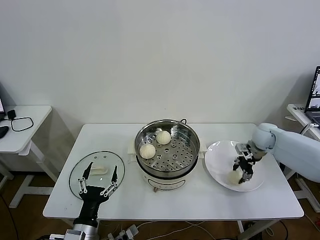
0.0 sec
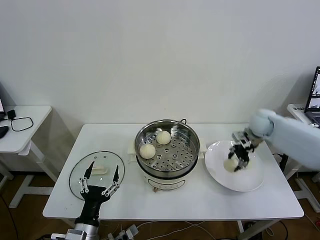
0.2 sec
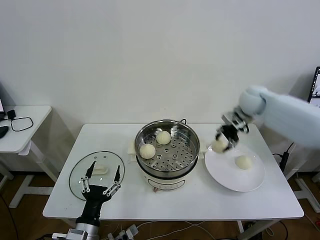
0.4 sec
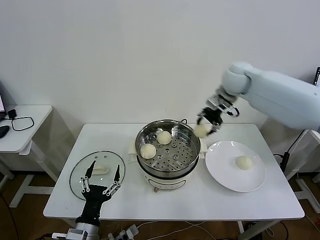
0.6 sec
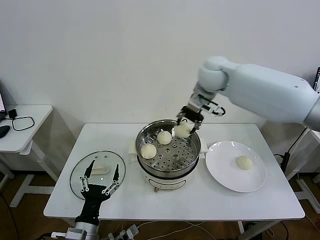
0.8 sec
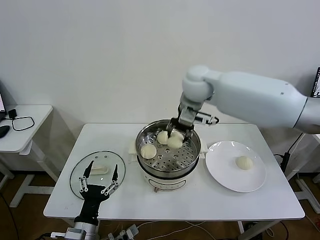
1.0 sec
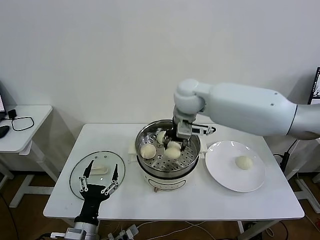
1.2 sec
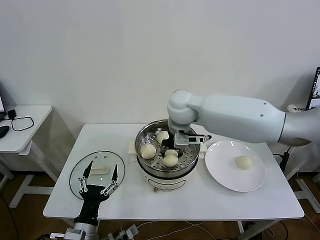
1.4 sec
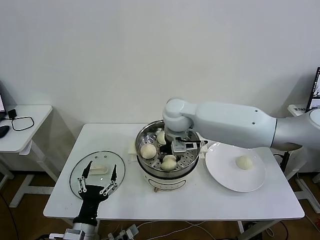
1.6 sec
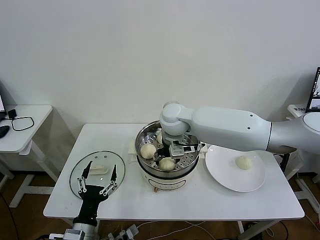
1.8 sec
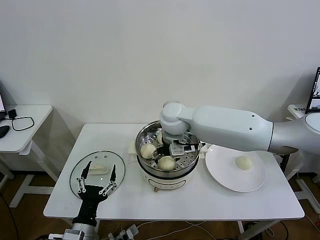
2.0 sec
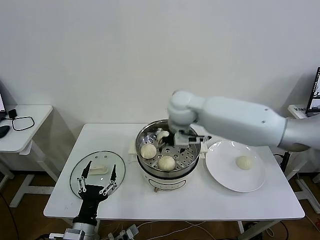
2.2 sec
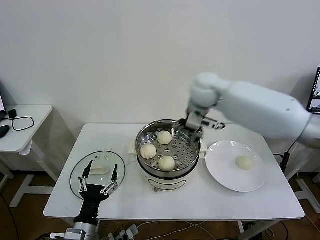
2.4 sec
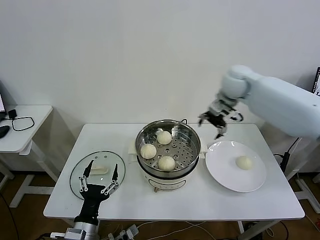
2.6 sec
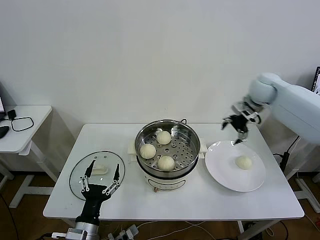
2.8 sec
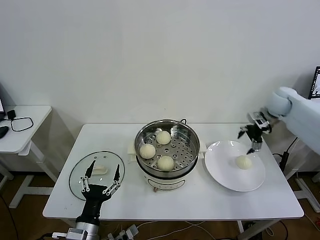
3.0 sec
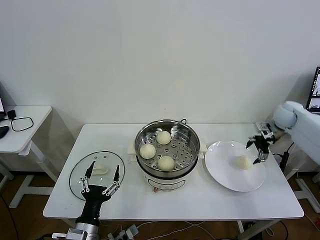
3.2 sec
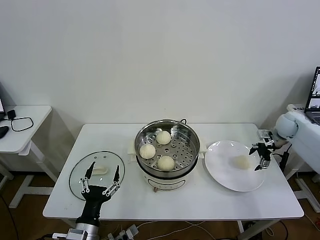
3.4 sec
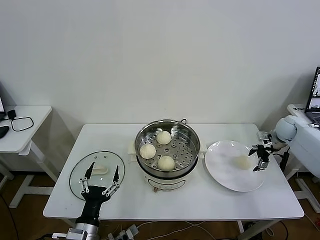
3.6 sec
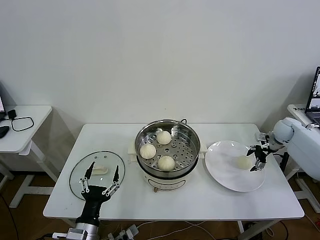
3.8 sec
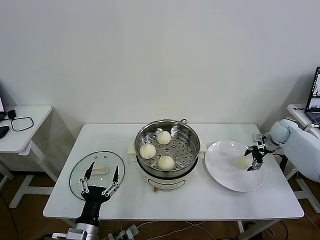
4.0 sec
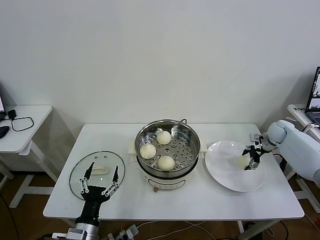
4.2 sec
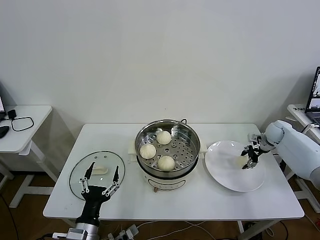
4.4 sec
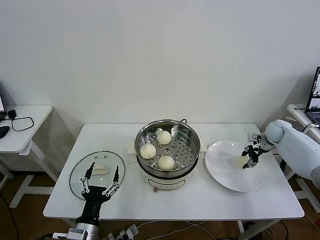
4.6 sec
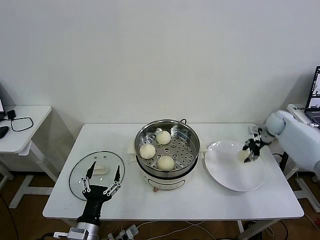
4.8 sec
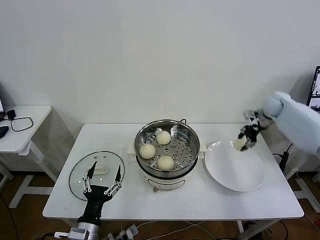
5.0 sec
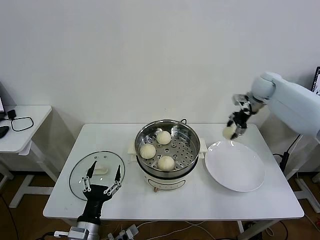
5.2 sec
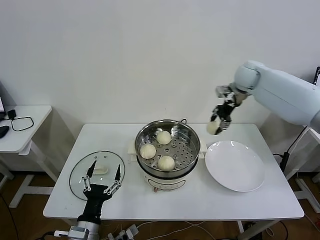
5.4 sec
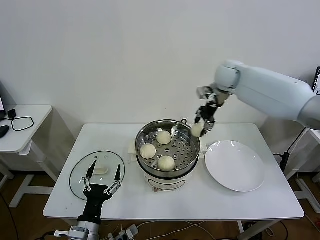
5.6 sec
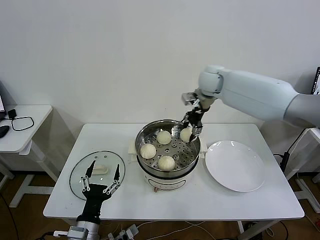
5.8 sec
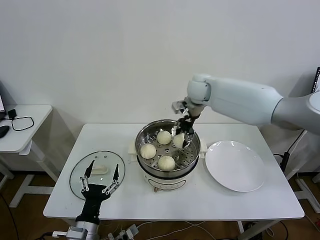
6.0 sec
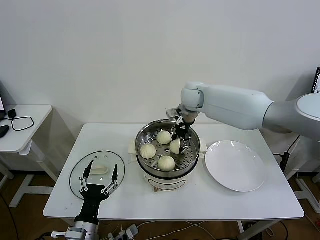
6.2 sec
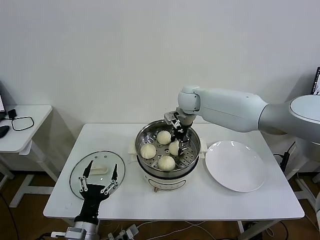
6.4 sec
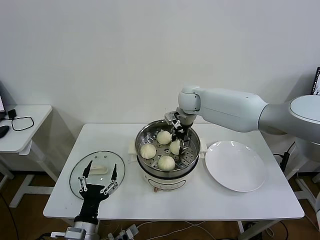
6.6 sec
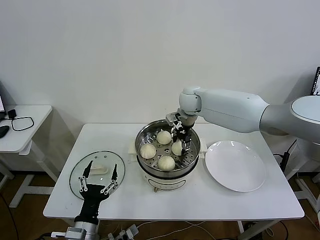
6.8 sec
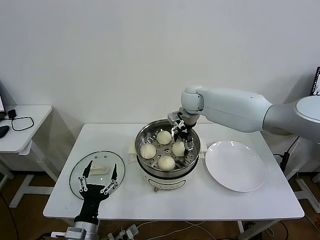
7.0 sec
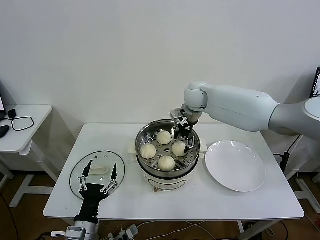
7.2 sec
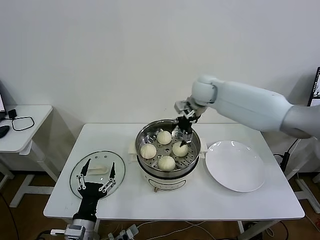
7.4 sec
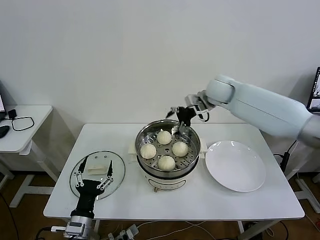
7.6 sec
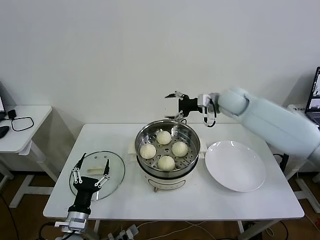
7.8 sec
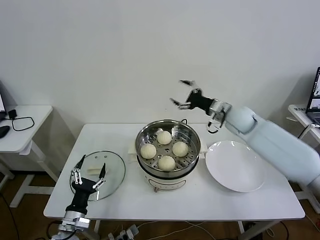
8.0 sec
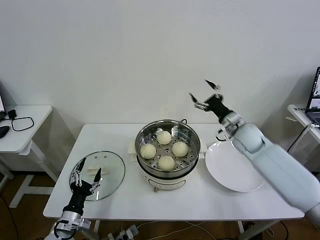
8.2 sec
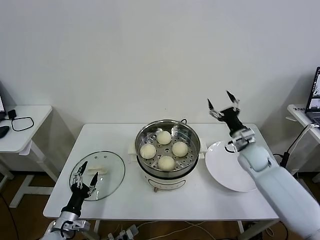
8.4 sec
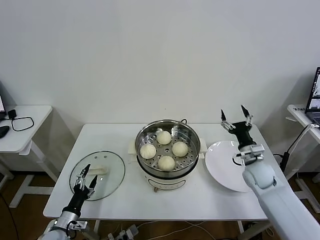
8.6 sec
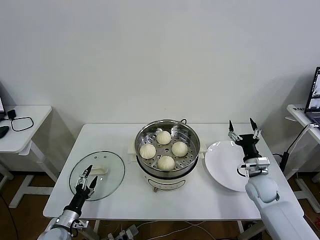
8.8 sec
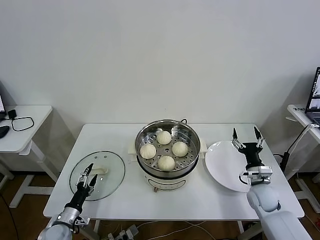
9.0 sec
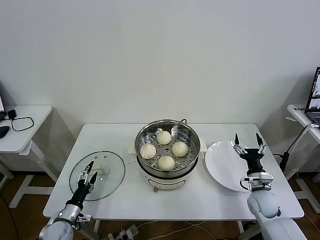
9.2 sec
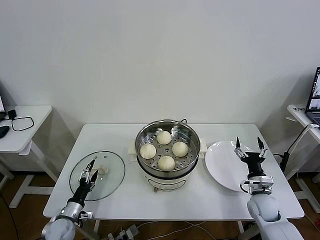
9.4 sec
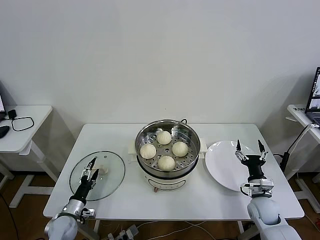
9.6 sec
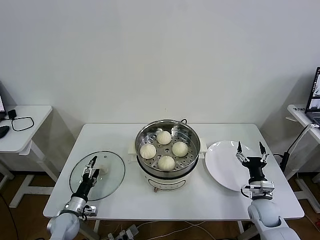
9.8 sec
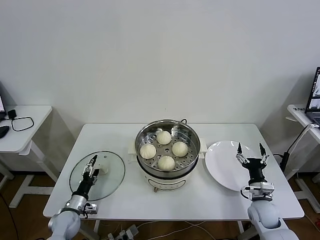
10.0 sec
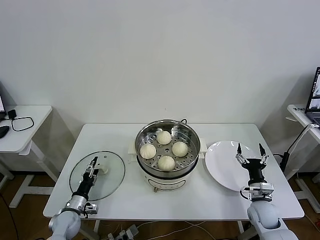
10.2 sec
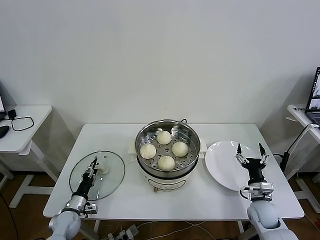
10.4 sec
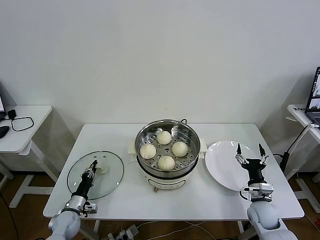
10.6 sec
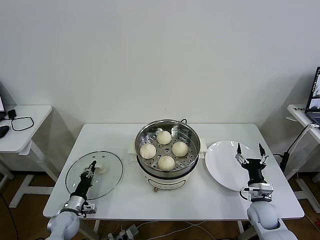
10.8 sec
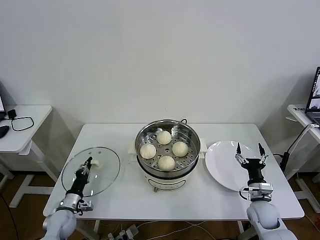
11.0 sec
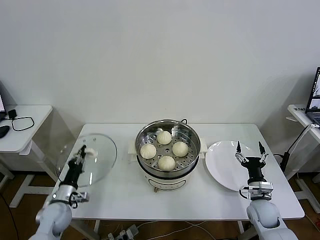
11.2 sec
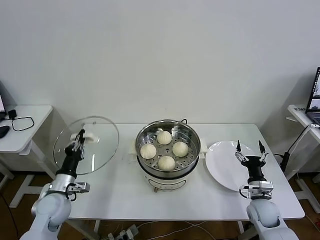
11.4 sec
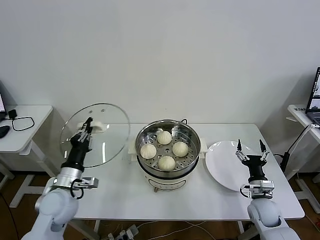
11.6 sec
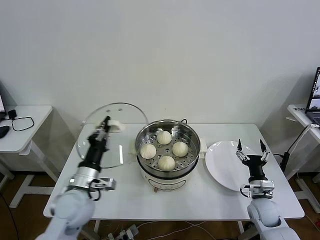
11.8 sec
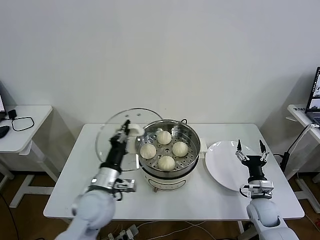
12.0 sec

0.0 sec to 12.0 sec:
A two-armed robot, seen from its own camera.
Task of the whole recording: take steamed baozi put them in steamer then cover it.
Step, 0.0 sec to 1.8 sec: Place the baozi on the steamer with right gripper.
Step, 2.0 sec to 4.6 sec: Grasp the baozi in the plate with right gripper.
Step, 4.8 sec to 6.8 sec: Place the baozi on the steamer with right gripper.
Step, 7.2 sec to 10.8 sec: Grasp the pot lid with left gripper.
0.0 sec to 1.6 sec: The right gripper moves to the left, roughly 35 cm.
1.6 sec to 3.0 sec: The right gripper shifts some 40 cm to the right, and opens its fingers.
3.0 sec to 4.4 sec: The right gripper moves downward, approximately 15 cm, and closes up.
4.4 sec to 6.0 sec: The right gripper goes approximately 40 cm to the left and upward, and closes its fingers.
6.0 sec to 7.6 sec: The right gripper travels to the right by approximately 5 cm, and opens.
7.6 sec to 9.0 sec: The right gripper shifts approximately 40 cm downward, backward and to the right. Meanwhile the left gripper moves to the left, downward and forward, some 20 cm.
9.0 sec to 10.4 sec: The left gripper heads forward, covering roughly 5 cm, and closes. The right gripper changes place by roughly 5 cm.
10.4 sec to 12.0 sec: The left gripper shifts approximately 30 cm upward and to the right, and closes its fingers.

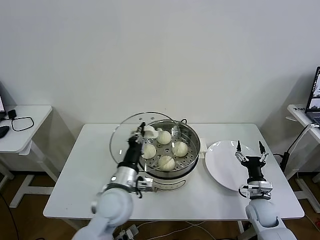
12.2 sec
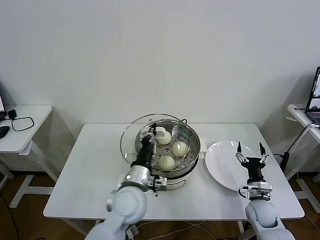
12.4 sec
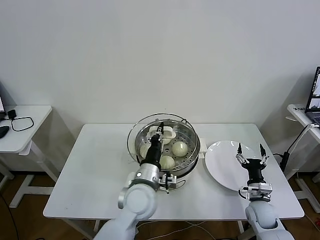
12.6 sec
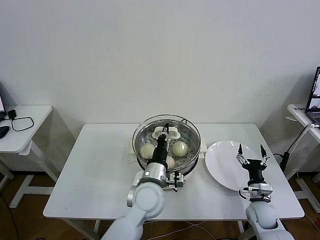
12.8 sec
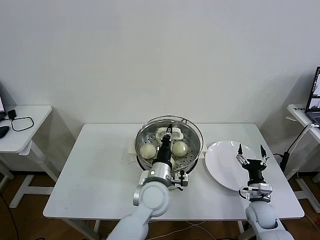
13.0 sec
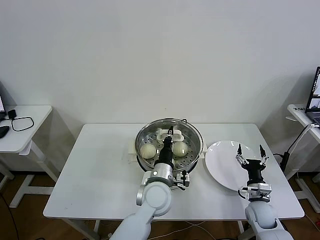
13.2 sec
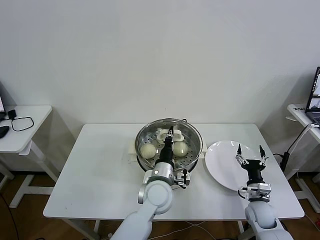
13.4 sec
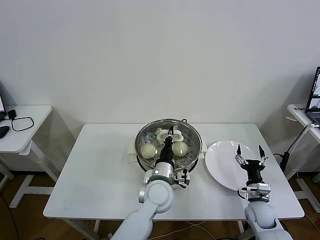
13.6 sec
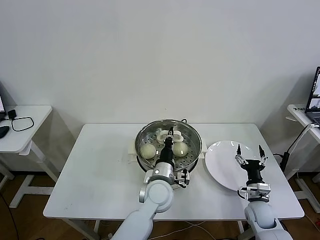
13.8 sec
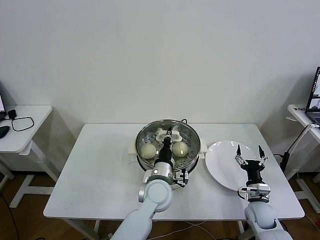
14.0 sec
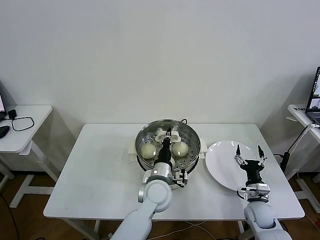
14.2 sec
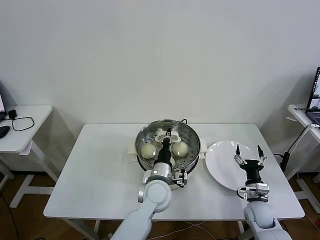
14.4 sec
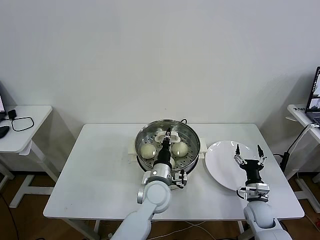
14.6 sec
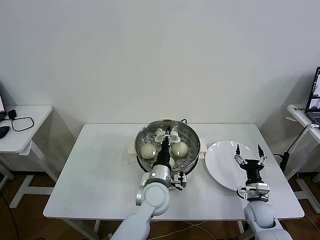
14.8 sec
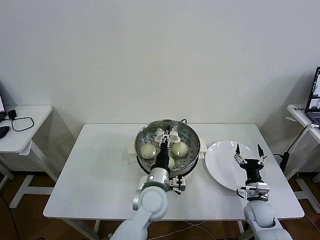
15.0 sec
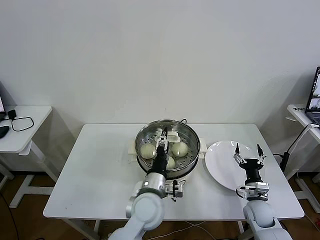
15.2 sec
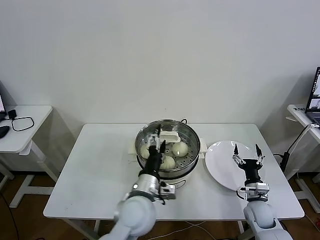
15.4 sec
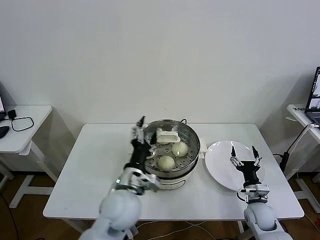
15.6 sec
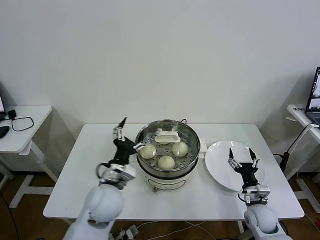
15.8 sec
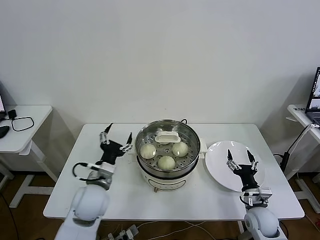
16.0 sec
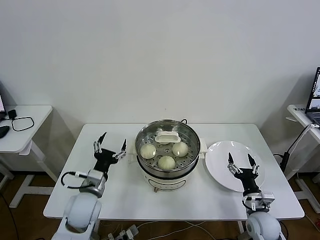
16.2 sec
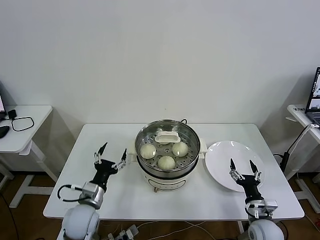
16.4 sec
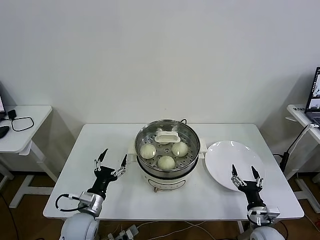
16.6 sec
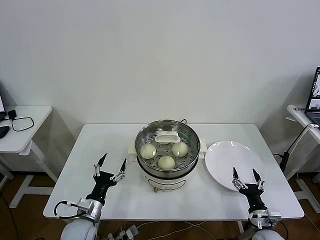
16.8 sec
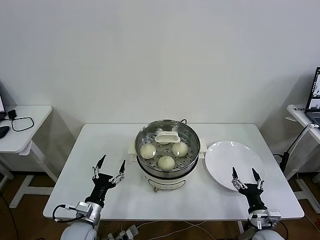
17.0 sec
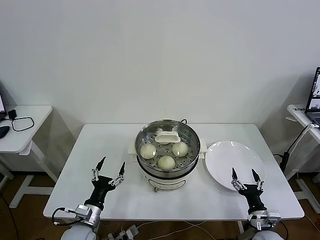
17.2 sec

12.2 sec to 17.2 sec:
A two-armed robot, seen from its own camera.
Task of the whole recording: take steamed baozi put them in steamer then cover it.
Step, 12.2 sec to 14.8 sec: Place the pot lid on the steamer with left gripper.
12.2 sec to 13.8 sec: The left gripper heads to the right, covering about 15 cm.
13.8 sec to 15.6 sec: The left gripper travels to the left, backward and upward by approximately 10 cm, and opens.
15.6 sec to 17.2 sec: The left gripper heads to the left and downward, covering some 25 cm. Meanwhile the right gripper shifts approximately 10 cm backward.
